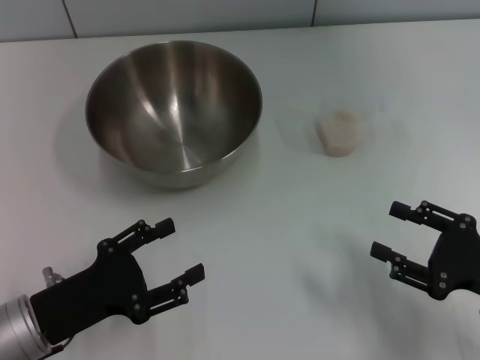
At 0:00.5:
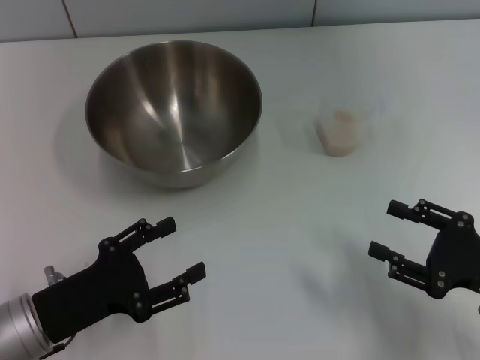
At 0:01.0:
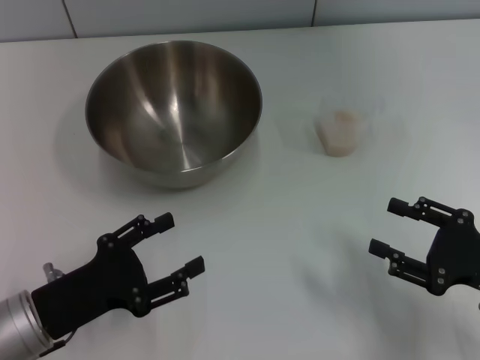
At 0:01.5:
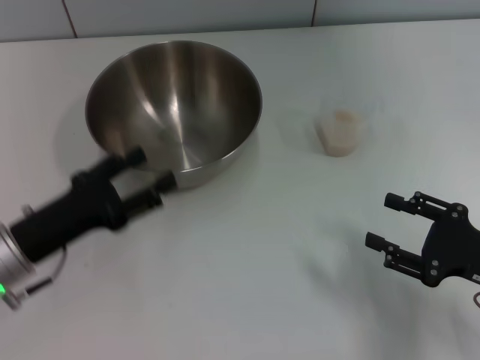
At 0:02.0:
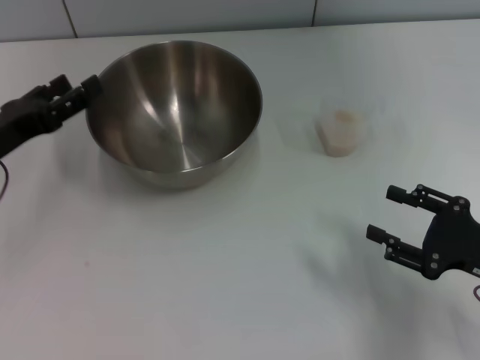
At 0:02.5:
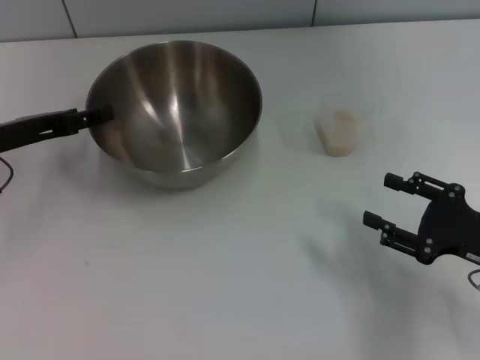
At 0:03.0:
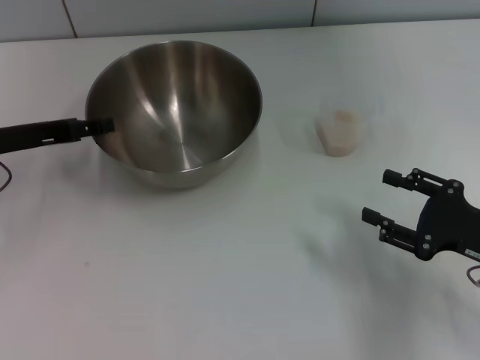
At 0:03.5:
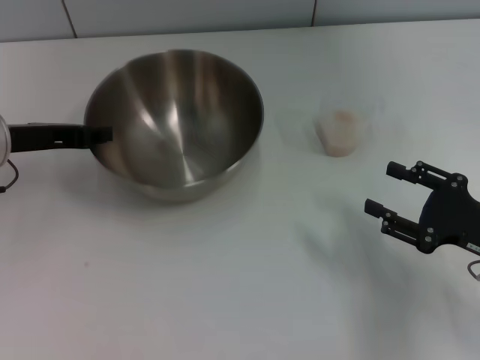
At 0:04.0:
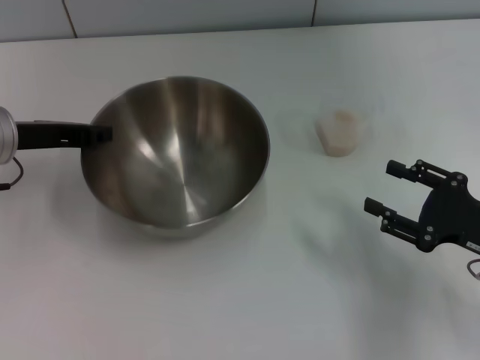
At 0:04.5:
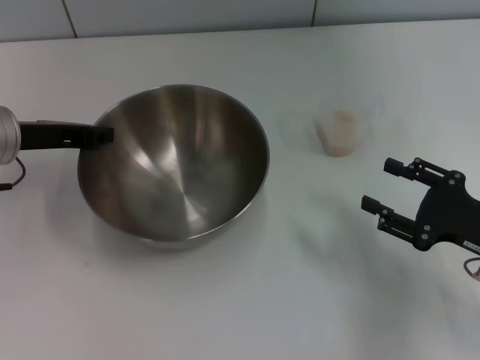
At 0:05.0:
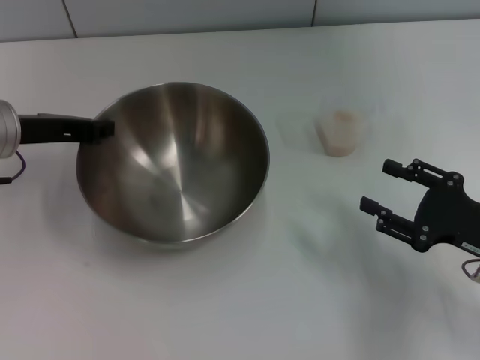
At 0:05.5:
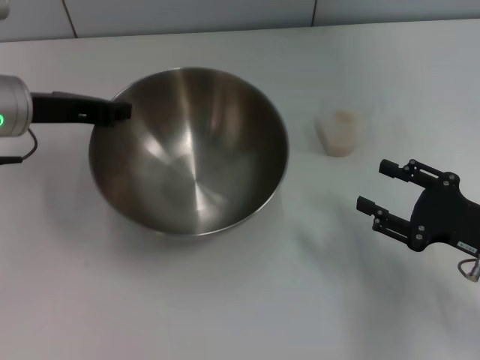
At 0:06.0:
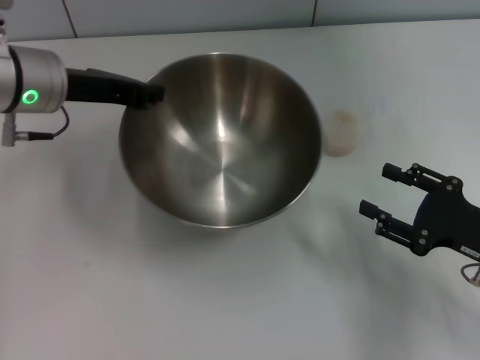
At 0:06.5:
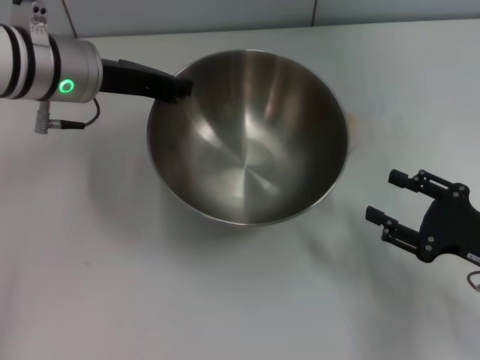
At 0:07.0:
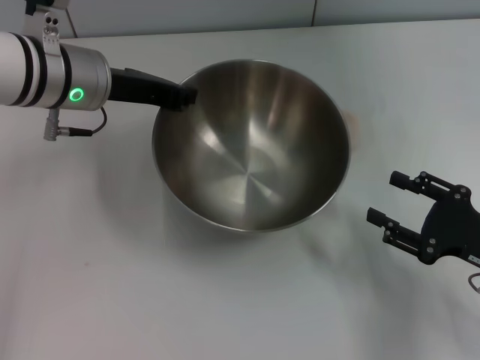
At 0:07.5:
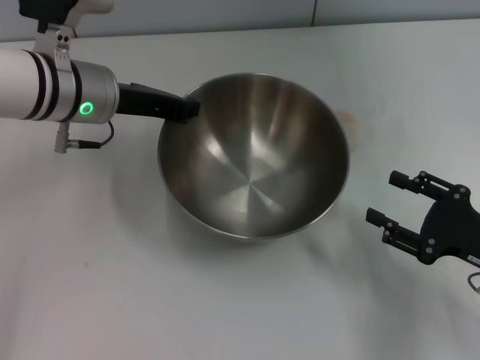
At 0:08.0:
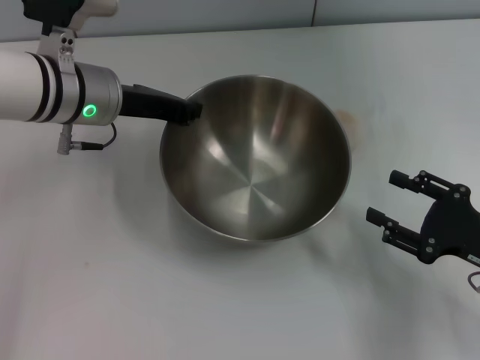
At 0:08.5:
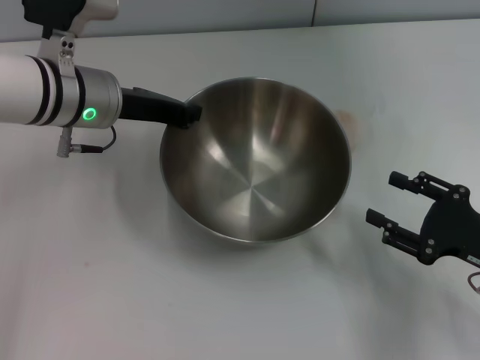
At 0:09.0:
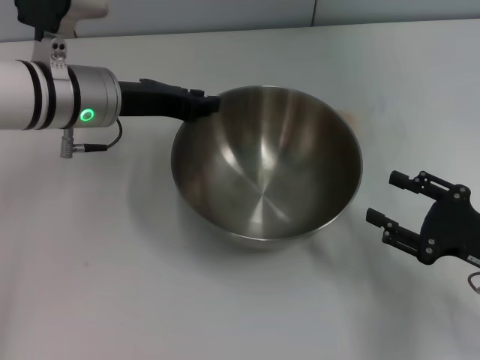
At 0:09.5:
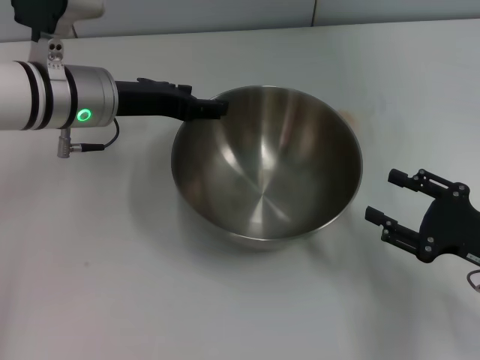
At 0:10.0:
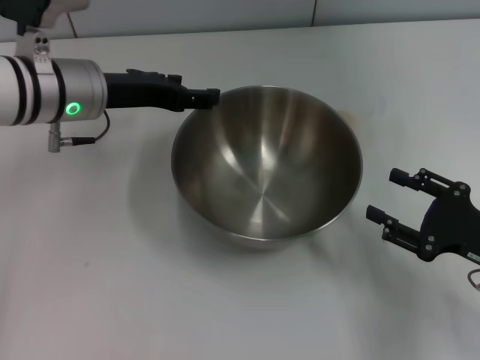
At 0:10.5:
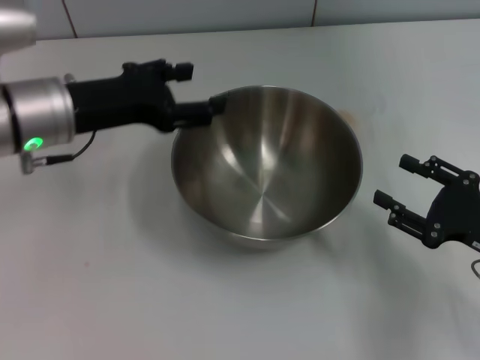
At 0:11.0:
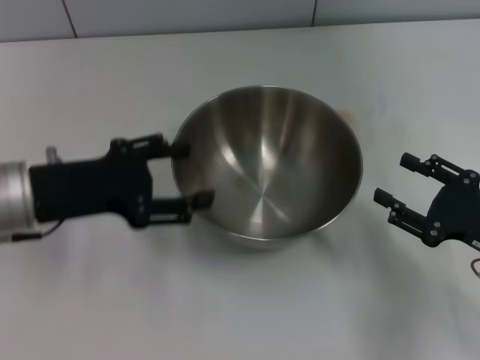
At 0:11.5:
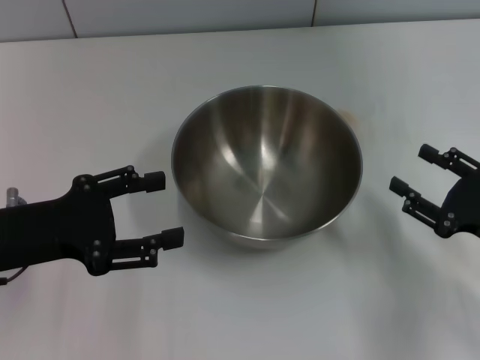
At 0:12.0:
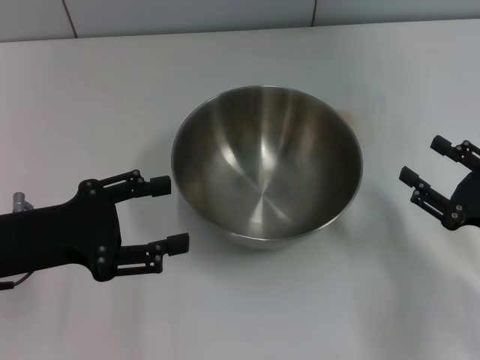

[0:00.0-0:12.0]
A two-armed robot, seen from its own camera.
Task of the whole recording: Place the bowl in the middle of the table with one hand and pour the rice from the grain cup into it with the other hand.
Step, 0:00.0 to 0:05.5: Pick up the bowl with the left gripper.
Step, 0:06.0 to 0:09.5: Place the bowl in the center of view with the left gripper.
0:00.0 to 0:02.0: The left gripper shifts some 15 cm forward and upward.
0:02.0 to 0:04.0: The left gripper goes roughly 5 cm forward, and closes its fingers.
0:04.0 to 0:06.0: The left gripper moves to the right, about 5 cm.
0:08.0 to 0:10.0: The left gripper opens its fingers.
0:10.0 to 0:12.0: The left gripper travels backward and to the left by some 15 cm.

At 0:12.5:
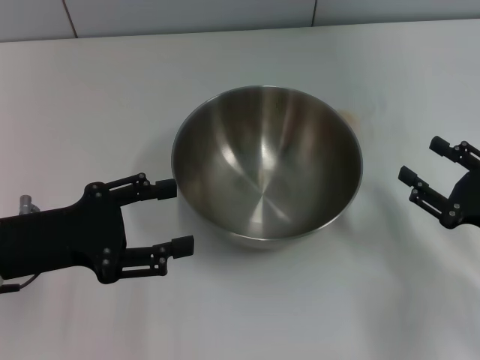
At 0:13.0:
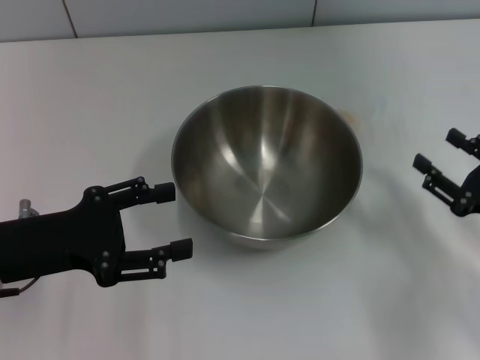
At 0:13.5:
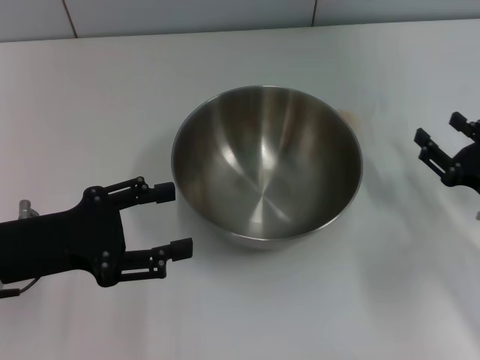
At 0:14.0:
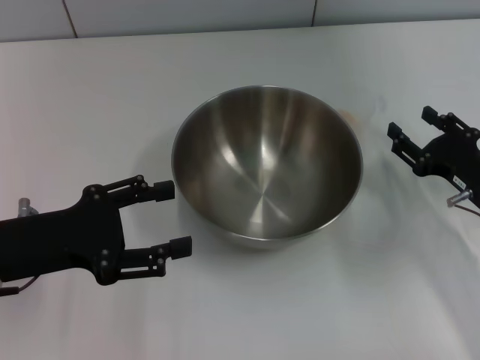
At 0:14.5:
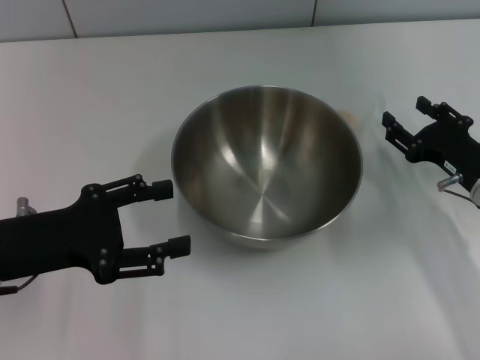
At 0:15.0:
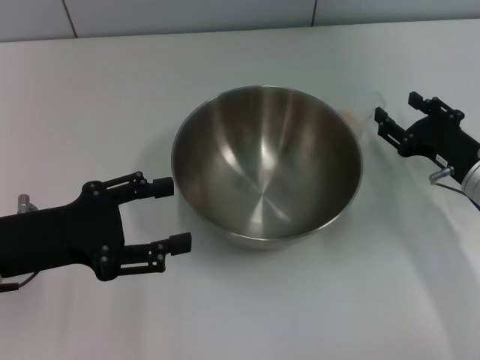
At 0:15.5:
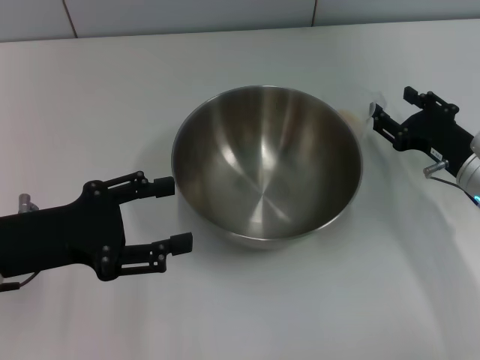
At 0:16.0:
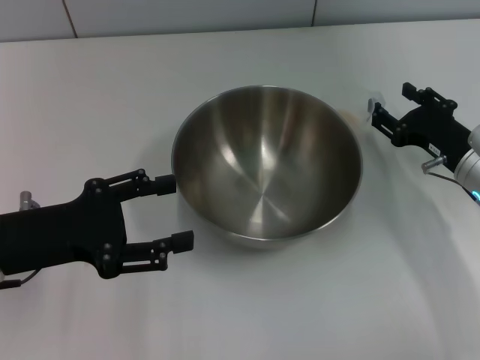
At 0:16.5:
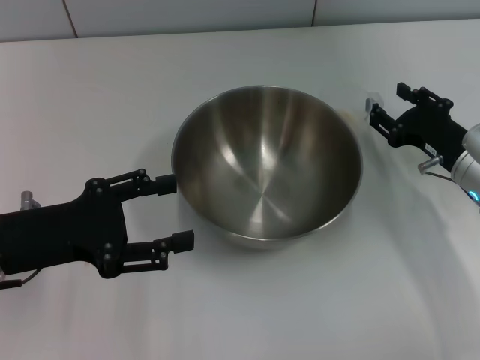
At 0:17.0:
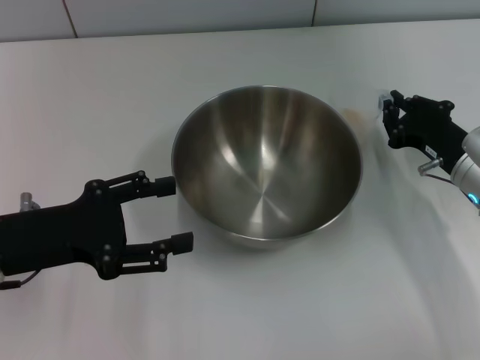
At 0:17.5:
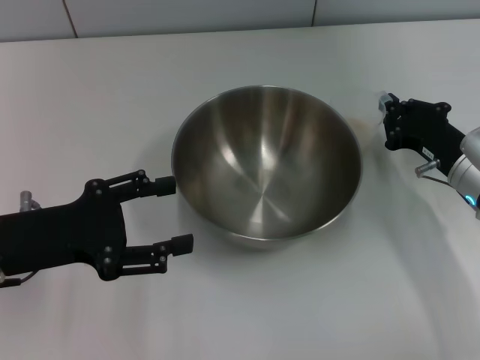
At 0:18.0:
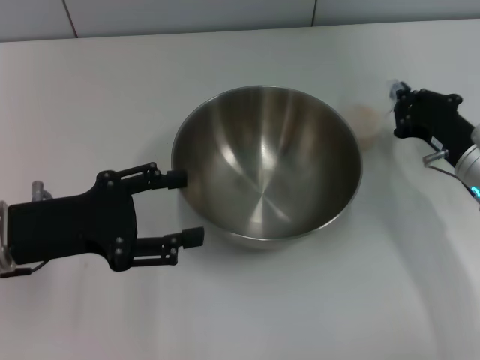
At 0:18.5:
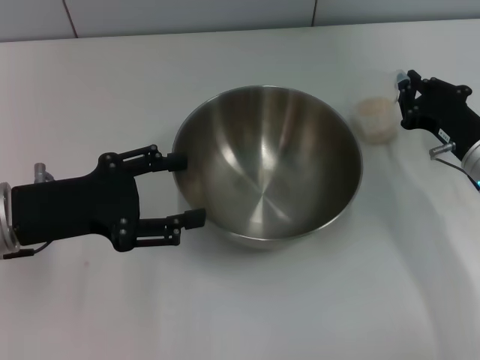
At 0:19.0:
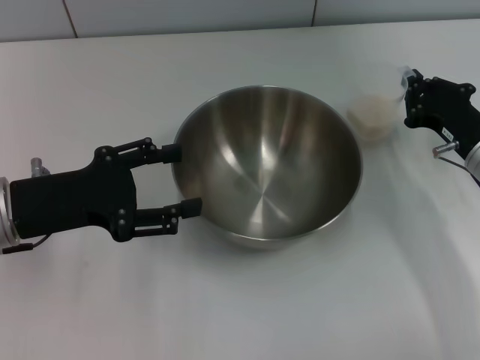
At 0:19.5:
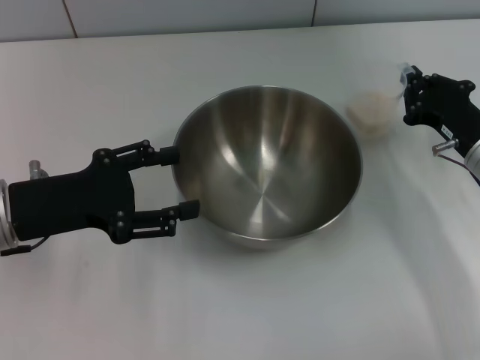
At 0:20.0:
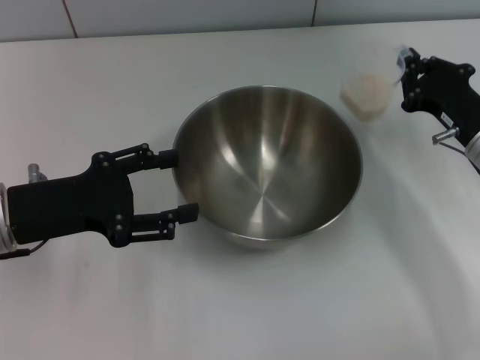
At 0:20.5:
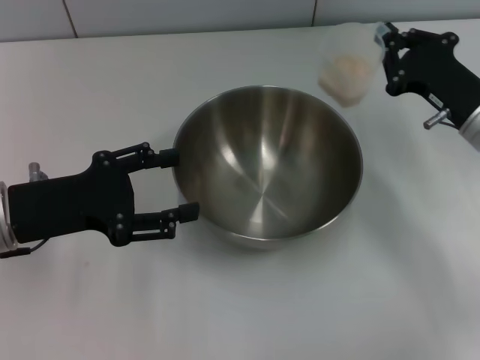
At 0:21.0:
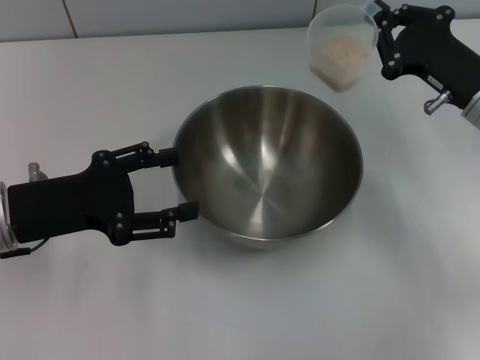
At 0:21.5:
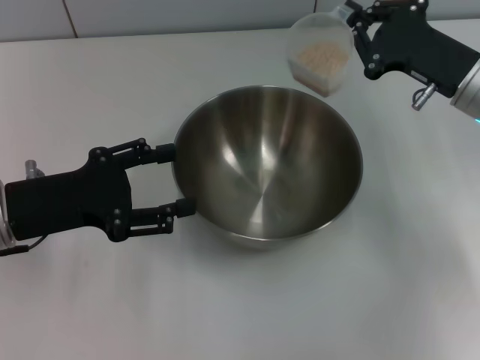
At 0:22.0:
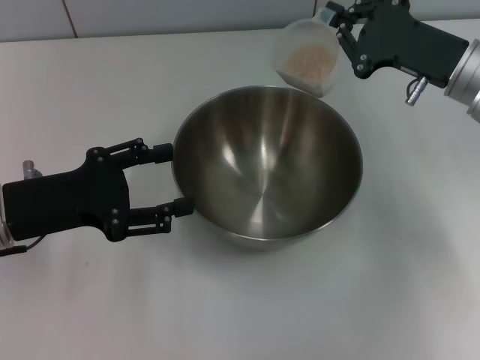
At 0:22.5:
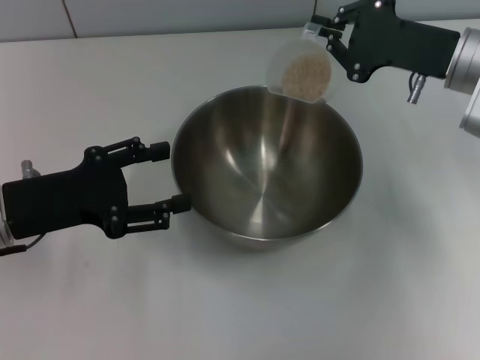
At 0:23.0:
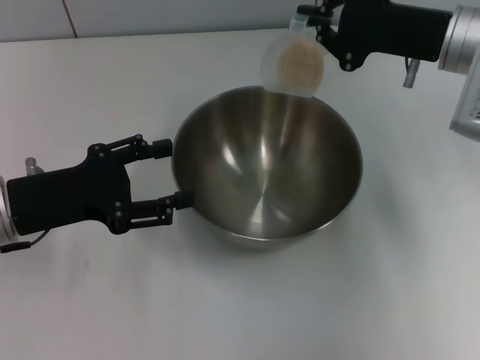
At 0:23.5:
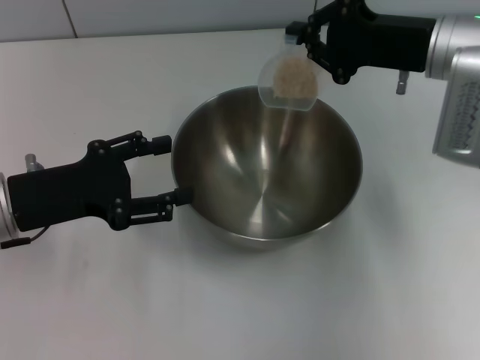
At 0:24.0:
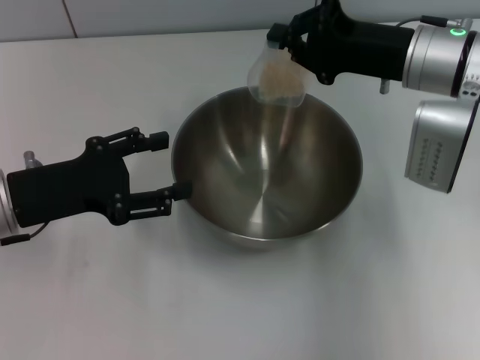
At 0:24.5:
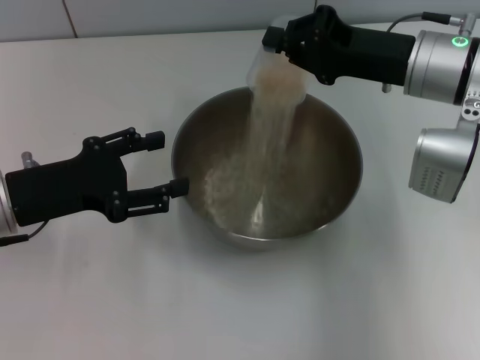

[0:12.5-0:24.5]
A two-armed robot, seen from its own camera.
Task of the whole recording: Place the bowl in the middle of the table with one hand and pour the rice from the grain cup into it with the other hand.
Step, 0:12.5 to 0:20.0: Pick up the cup with rice in it with the right gripper.
0:12.5 to 0:14.5: The right gripper travels forward by some 10 cm.
0:14.5 to 0:16.5: The grippers move only a little.
0:16.5 to 0:18.5: The right gripper closes its fingers.
0:18.5 to 0:20.5: There are only small adjustments of the grippers.
0:20.5 to 0:22.5: The right gripper heads upward, covering some 5 cm.

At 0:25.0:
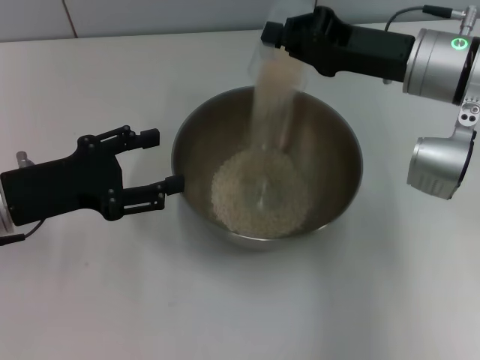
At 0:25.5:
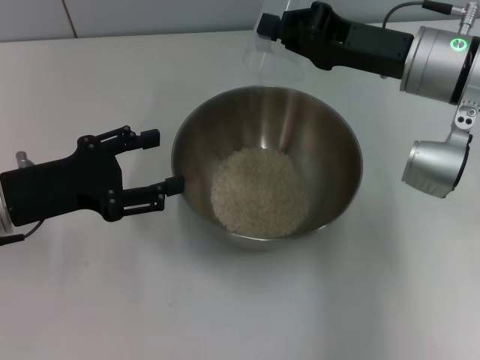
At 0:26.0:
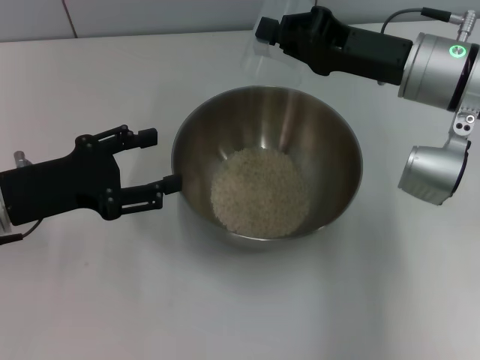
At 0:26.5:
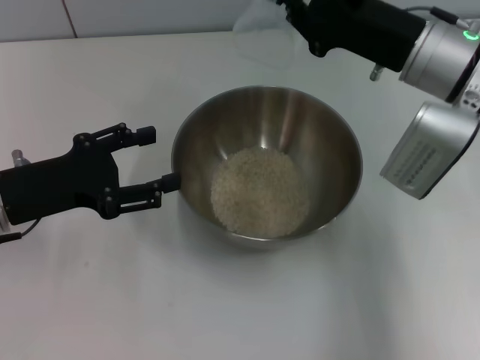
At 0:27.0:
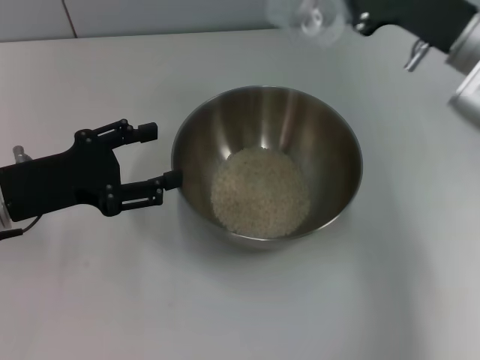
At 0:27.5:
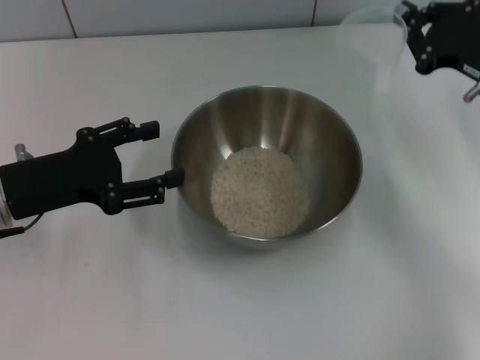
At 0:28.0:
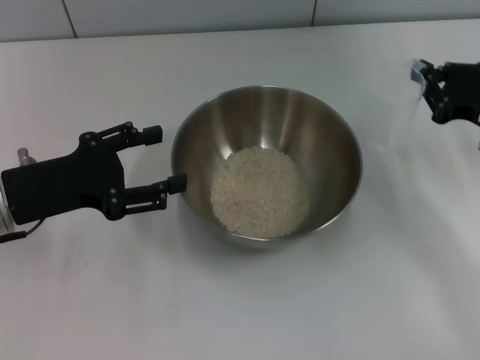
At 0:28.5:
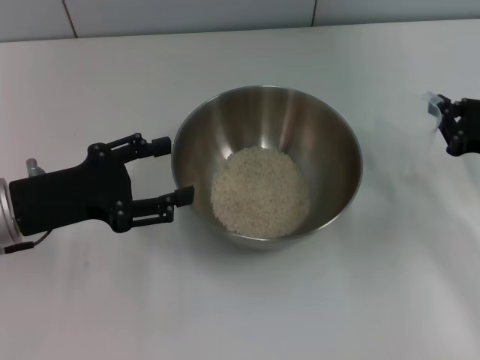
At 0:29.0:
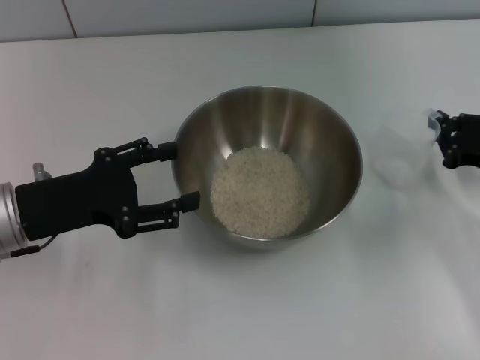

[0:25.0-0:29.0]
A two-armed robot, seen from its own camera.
Task of the whole recording: Place the bowl in the middle of the table with one hand and pour the rice from the grain cup into it with the other hand.
Step, 0:25.0 to 0:27.0: Pour the rice from the cup into the bowl with the right gripper.
0:27.0 to 0:29.0: The right gripper is displaced downward, to the right and backward by about 15 cm.
